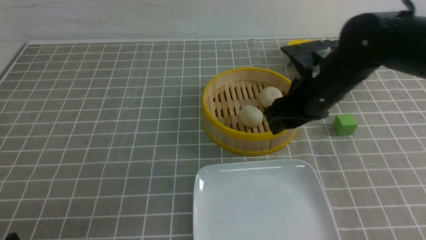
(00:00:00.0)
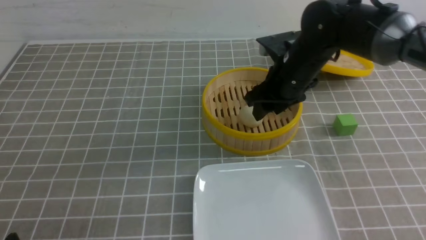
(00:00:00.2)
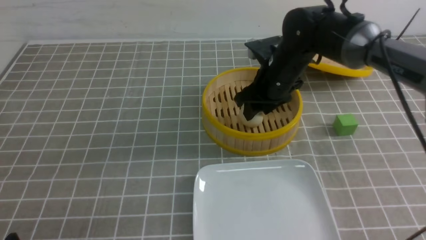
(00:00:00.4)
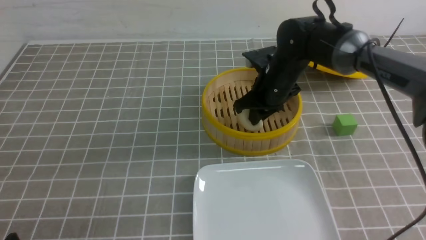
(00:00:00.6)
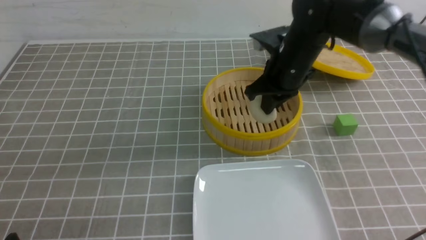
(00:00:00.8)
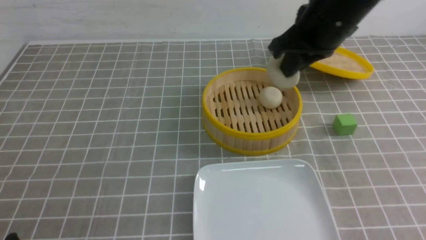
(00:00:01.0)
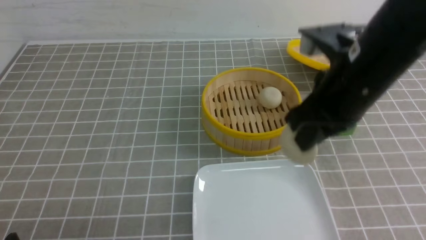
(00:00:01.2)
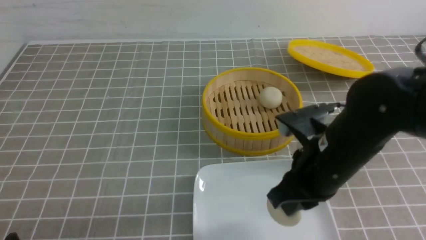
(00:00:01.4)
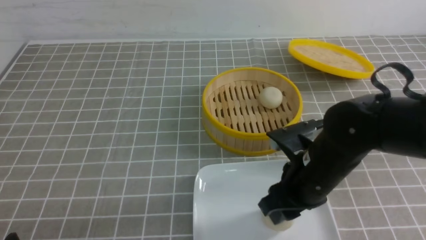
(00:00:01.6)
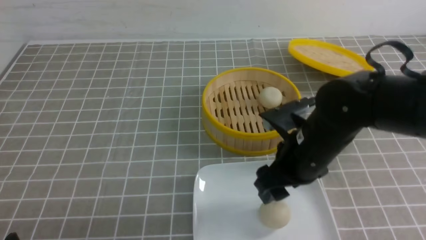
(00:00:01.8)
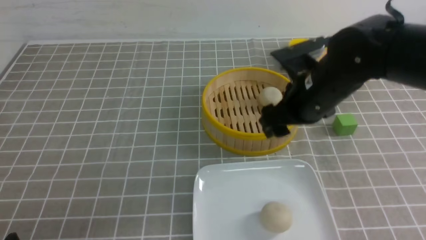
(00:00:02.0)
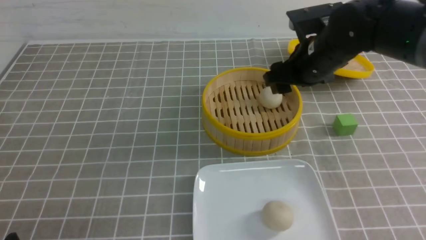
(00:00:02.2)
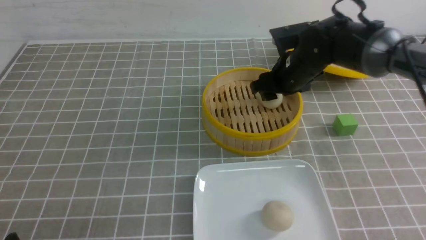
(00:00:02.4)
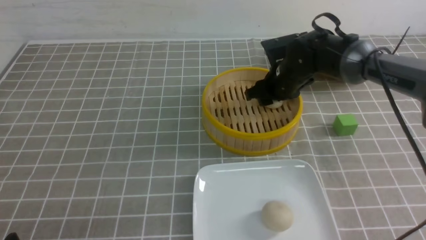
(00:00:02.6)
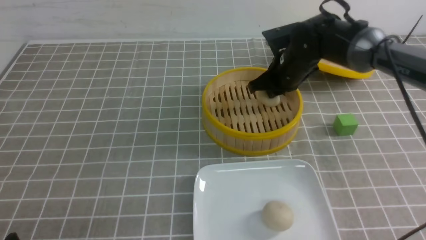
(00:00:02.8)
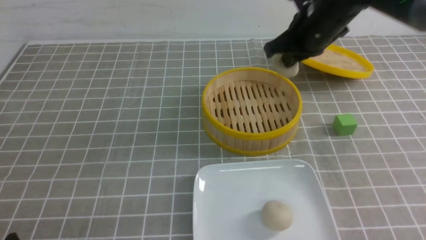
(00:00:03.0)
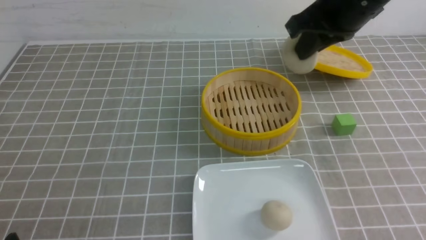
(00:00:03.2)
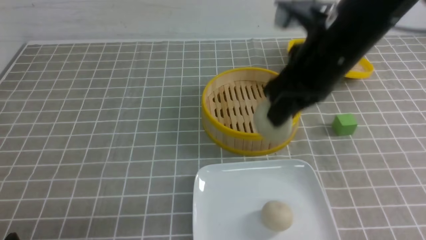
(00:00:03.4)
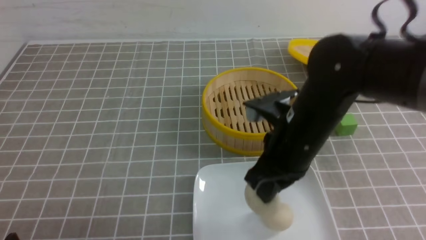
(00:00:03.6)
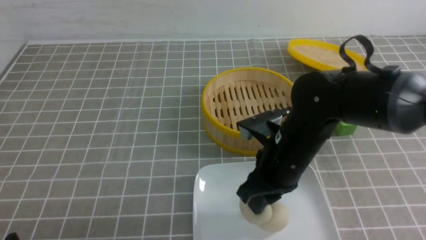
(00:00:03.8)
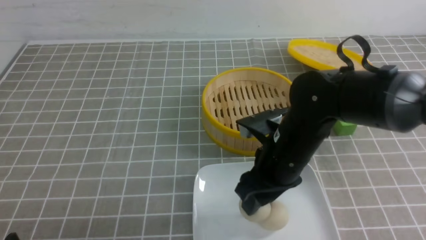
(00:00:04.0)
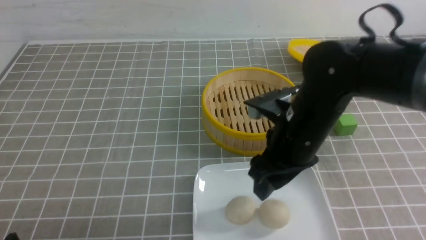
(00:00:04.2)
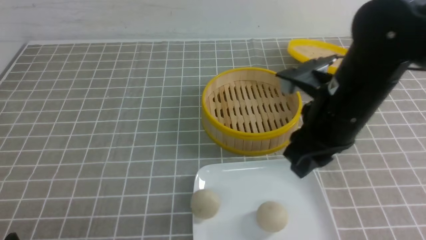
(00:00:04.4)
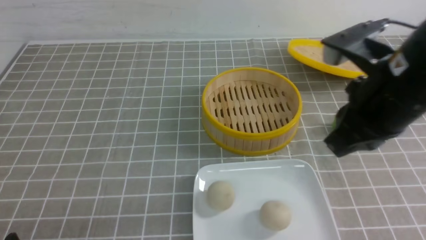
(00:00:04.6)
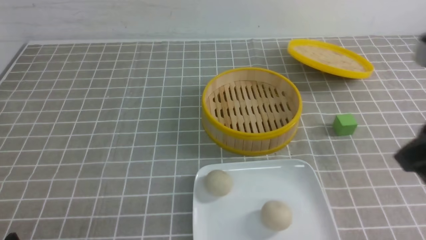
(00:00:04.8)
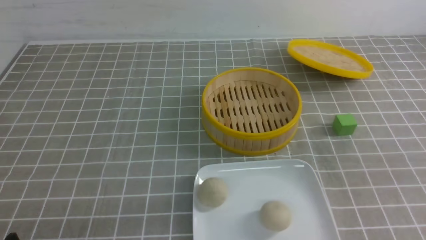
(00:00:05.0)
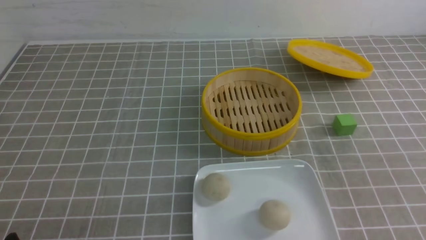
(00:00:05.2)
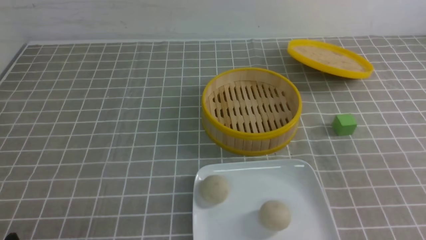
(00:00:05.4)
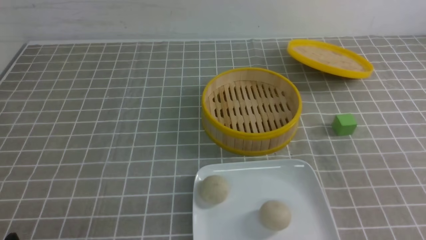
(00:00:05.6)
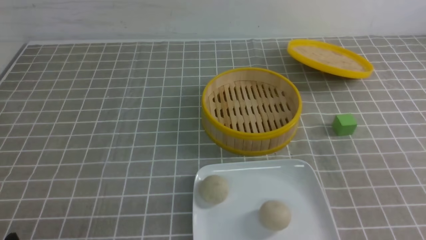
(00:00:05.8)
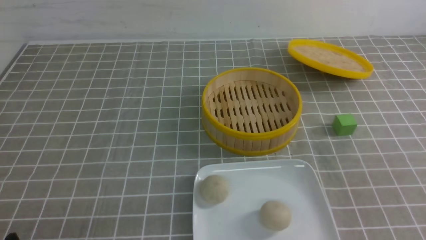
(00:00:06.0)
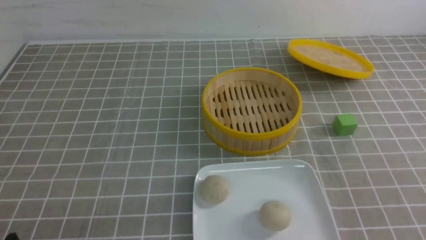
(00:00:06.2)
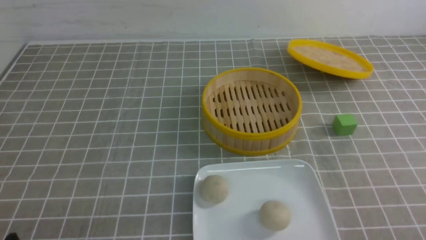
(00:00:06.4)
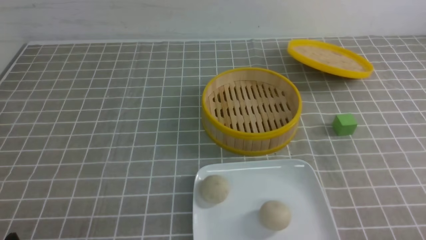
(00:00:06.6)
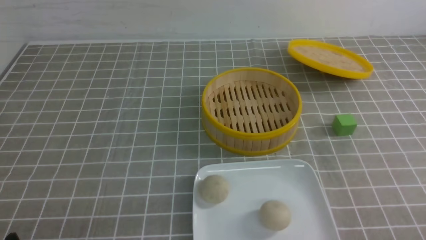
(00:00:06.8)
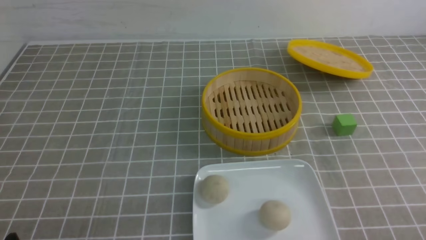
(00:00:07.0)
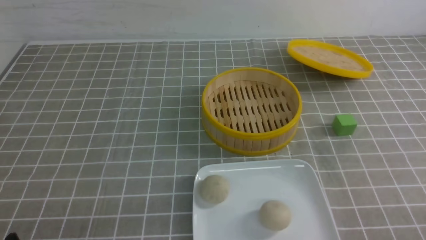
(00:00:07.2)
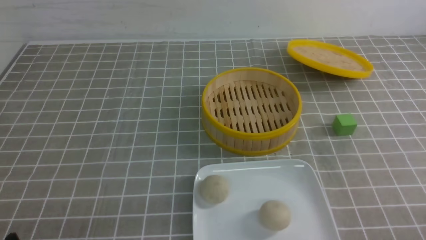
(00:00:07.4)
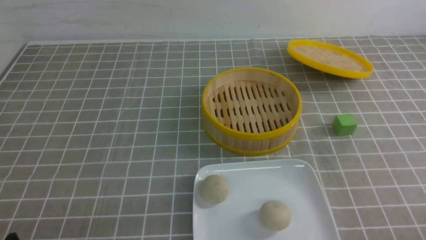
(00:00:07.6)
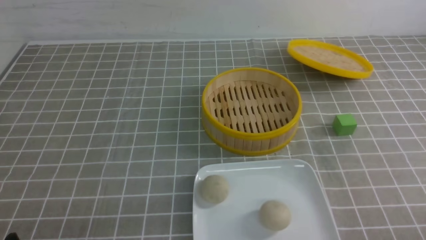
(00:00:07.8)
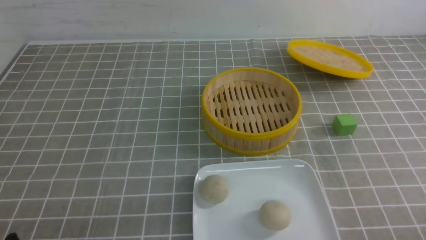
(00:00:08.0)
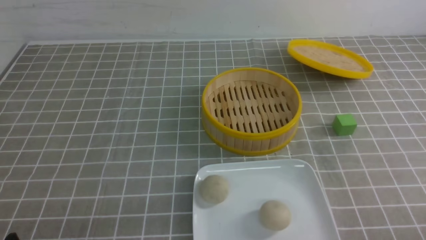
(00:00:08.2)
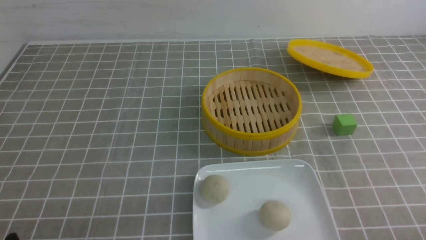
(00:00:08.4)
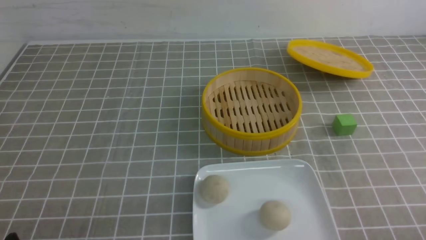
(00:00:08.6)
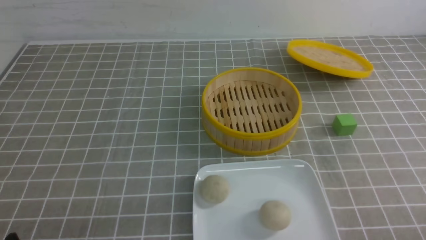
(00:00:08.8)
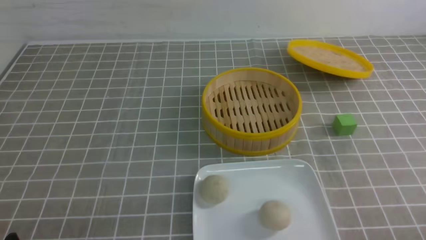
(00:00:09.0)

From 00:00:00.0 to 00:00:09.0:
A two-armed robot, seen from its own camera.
Step, from 00:00:00.8 to 00:00:01.8: use the right arm to put the steamed stuffed bun into the plate.
Step, from 00:00:02.0 to 00:00:02.8: use the right arm to grab the steamed stuffed bun that is closest to it.
Step, from 00:00:03.0 to 00:00:04.2: use the right arm to put the steamed stuffed bun into the plate.
From 00:00:00.0 to 00:00:01.6: The right gripper travels backward and downward by some 10 cm, and closes, then reopens.
From 00:00:01.6 to 00:00:03.0: The right gripper shifts approximately 20 cm forward and upward, and closes up.
From 00:00:03.0 to 00:00:04.4: The right gripper goes about 15 cm backward, goes downward and returns, roughly 10 cm each way, and opens.
From 00:00:04.4 to 00:00:06.0: The right gripper is displaced backward and to the right by roughly 25 cm, and closes.
From 00:00:07.6 to 00:00:09.0: Both grippers stay put.
